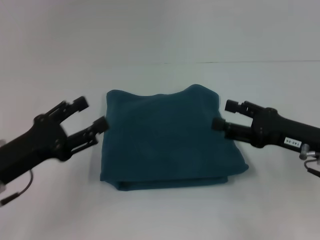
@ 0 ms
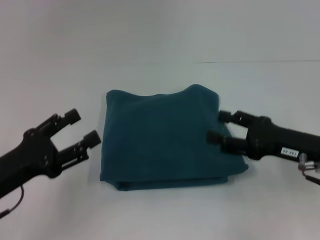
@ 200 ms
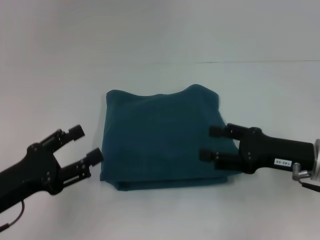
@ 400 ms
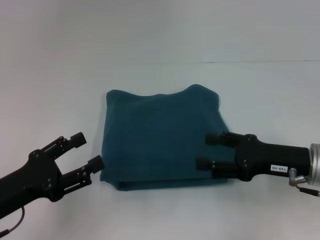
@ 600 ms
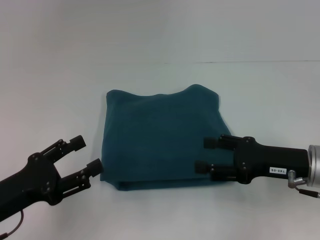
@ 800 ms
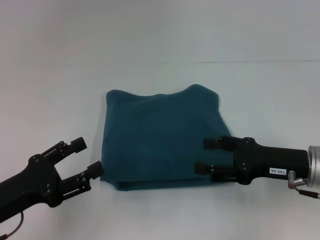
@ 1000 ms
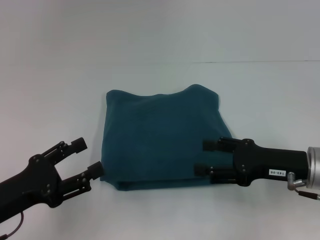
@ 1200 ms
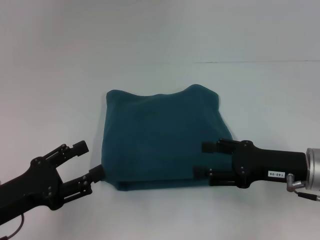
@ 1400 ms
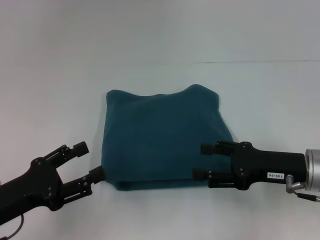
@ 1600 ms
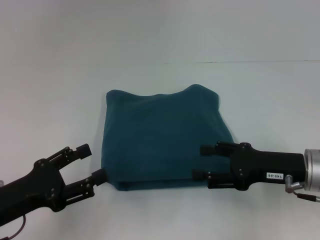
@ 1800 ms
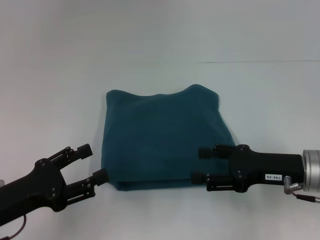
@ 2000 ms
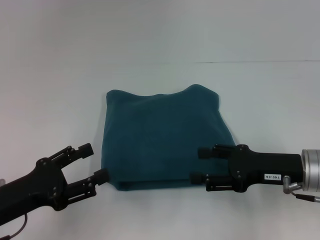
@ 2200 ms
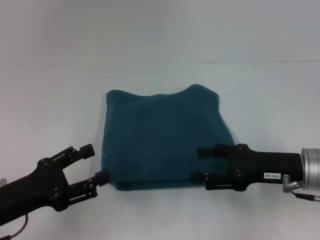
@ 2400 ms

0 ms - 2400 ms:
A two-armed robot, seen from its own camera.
0 ms - 1200 ms: The grippers make only small movements.
1200 ms - 2400 ms: Neither gripper changes place.

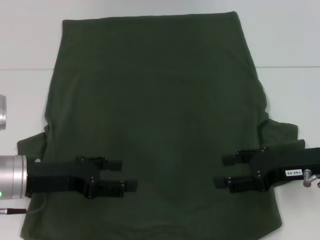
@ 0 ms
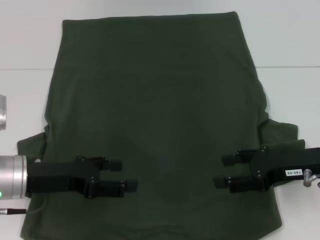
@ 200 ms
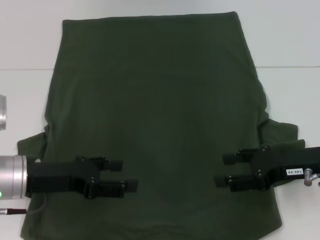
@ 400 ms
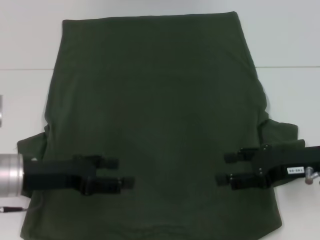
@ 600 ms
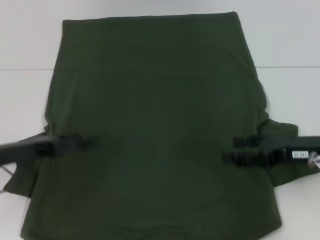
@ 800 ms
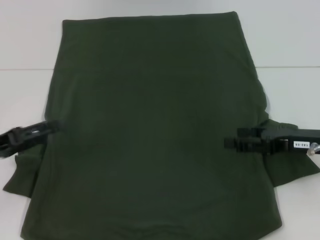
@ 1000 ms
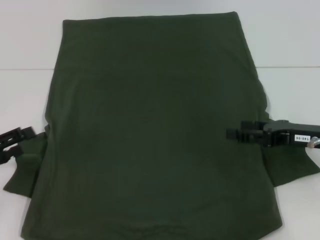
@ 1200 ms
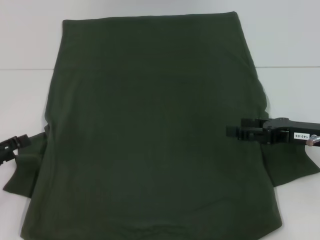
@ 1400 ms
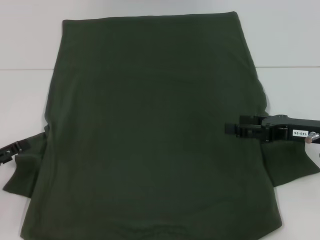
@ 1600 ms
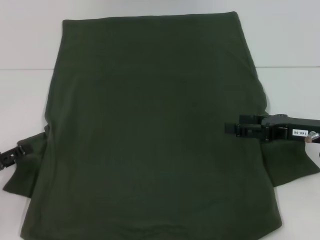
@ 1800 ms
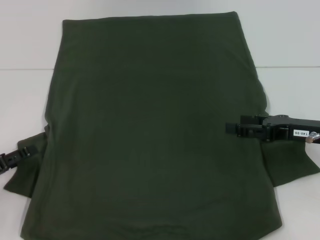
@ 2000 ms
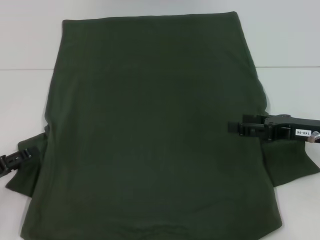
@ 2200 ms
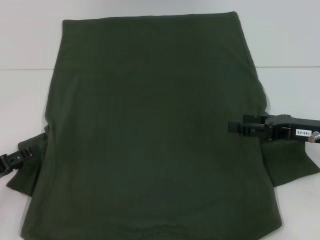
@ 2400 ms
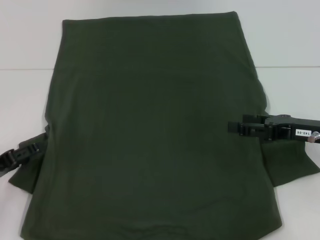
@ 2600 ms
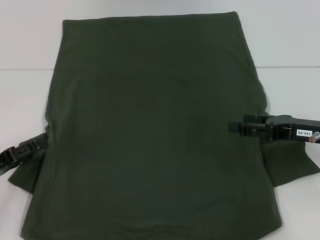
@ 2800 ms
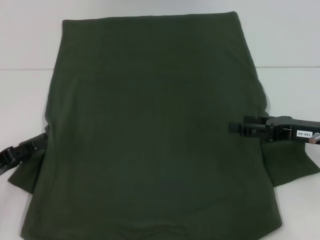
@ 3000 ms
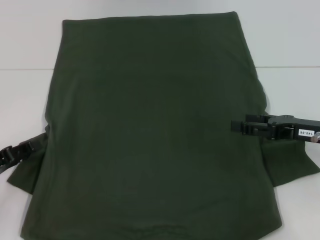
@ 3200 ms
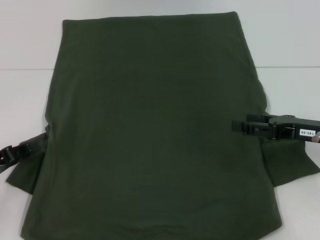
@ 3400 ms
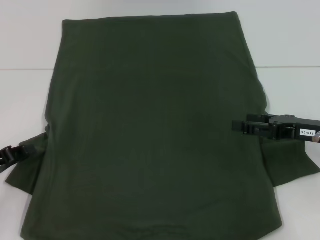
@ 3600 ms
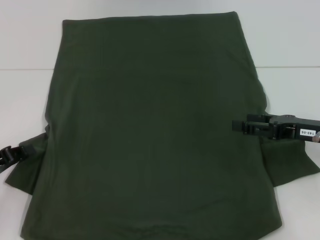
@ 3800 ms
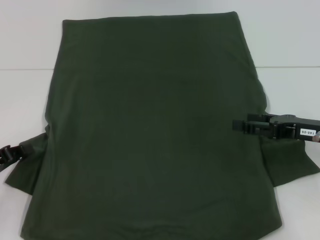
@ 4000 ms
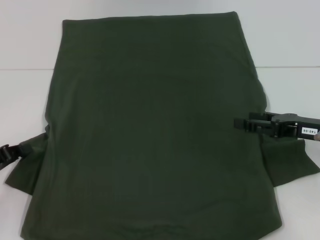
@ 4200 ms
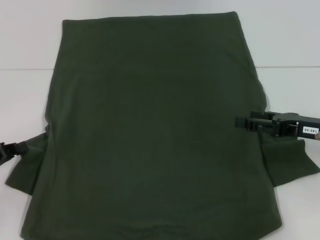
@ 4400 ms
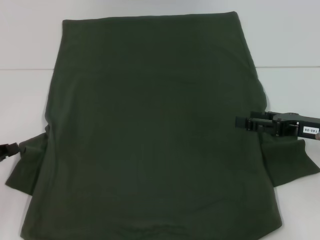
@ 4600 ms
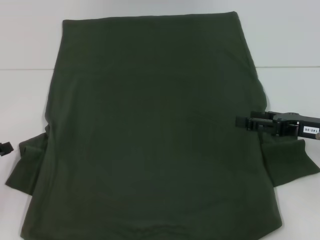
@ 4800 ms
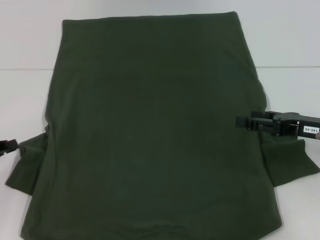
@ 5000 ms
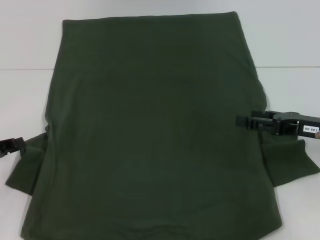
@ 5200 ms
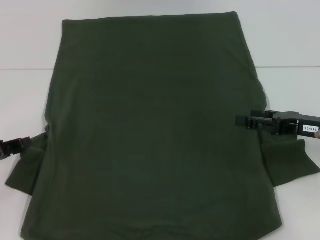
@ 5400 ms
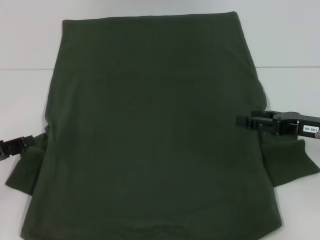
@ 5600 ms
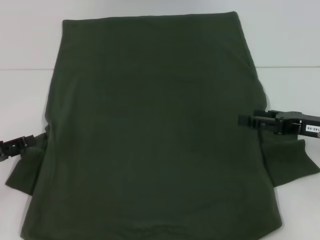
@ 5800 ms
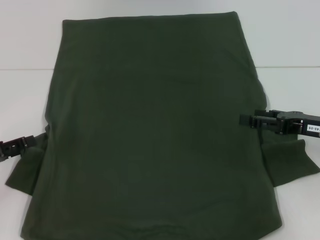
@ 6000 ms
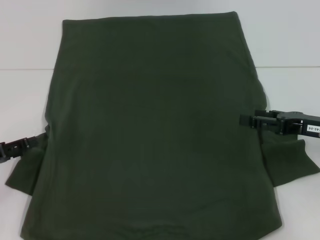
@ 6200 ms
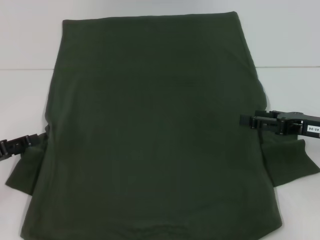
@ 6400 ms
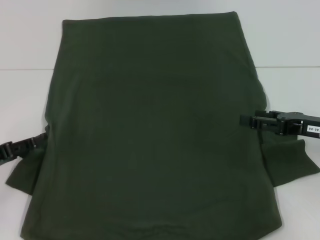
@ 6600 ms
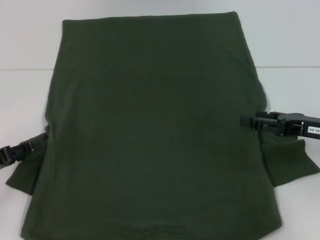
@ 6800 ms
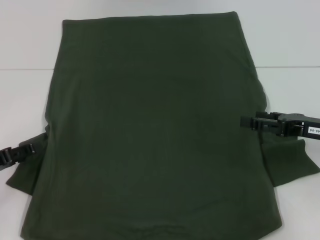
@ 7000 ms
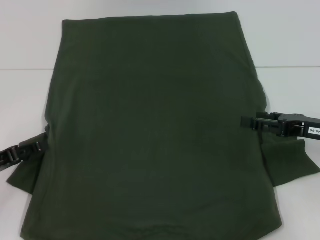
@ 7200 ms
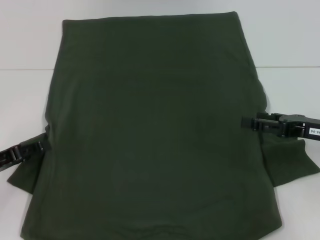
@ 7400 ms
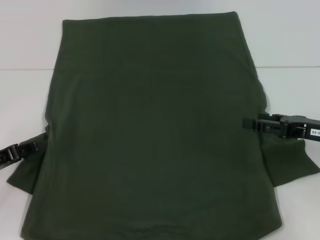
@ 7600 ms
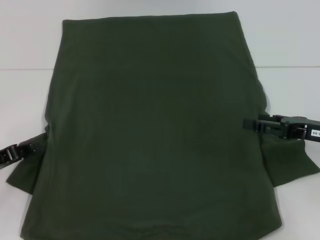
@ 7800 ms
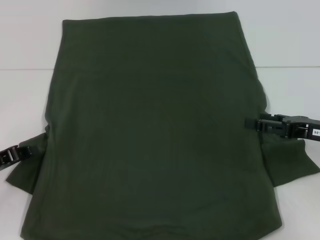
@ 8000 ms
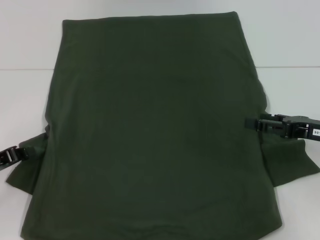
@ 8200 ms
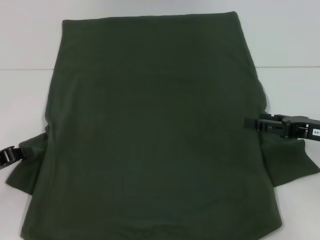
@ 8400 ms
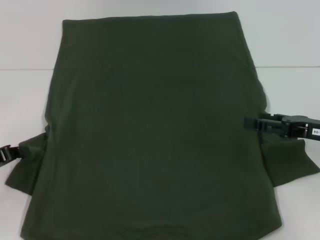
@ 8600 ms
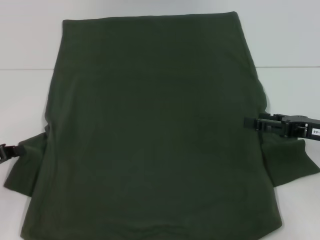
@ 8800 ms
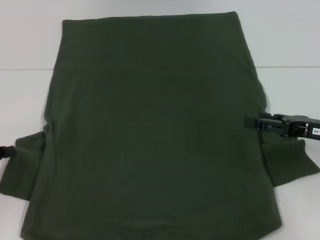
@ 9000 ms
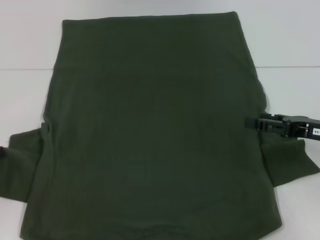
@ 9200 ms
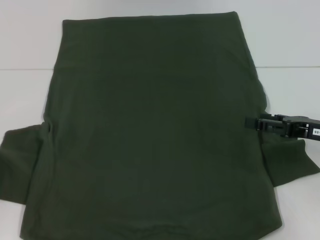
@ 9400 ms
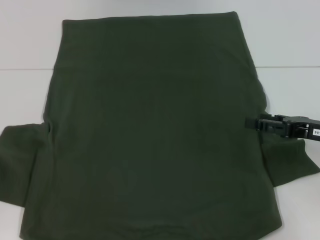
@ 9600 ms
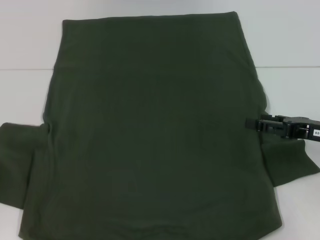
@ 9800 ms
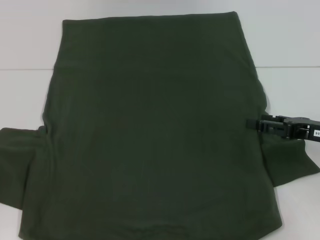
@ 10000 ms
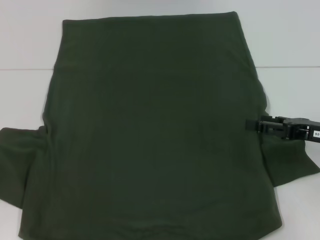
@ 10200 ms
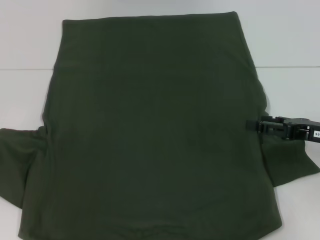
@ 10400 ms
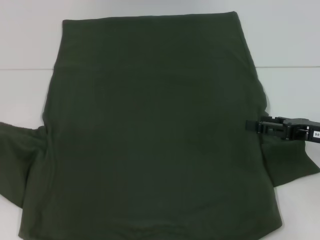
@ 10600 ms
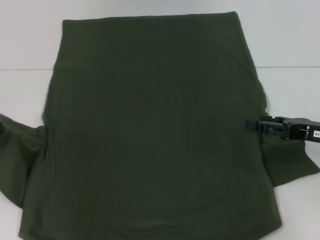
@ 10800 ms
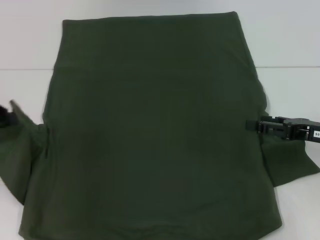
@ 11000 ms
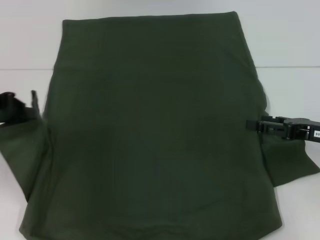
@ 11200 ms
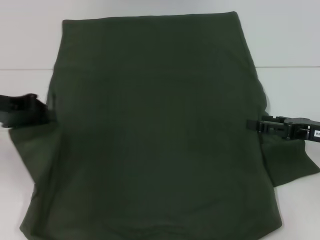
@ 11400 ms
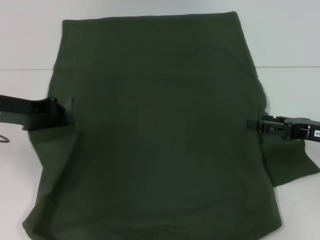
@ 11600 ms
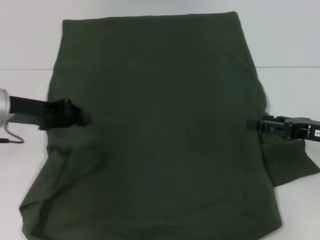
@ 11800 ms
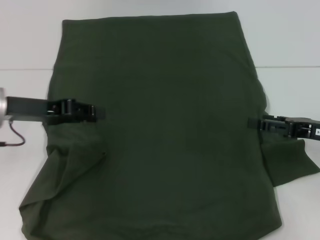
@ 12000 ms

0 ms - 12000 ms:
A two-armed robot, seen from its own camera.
0 ms - 1600 ms: The left gripper is displaced to the left by some 10 cm.
1600 ms - 3000 ms: The grippers make only small movements.
3000 ms - 4400 ms: The left gripper closes.
6000 ms - 7600 ms: The grippers move only a little.
7600 ms - 9000 ms: The left gripper closes.
9000 ms - 10400 ms: The left gripper shifts about 5 cm upward.
10400 ms - 12000 ms: The left gripper shifts approximately 15 cm to the right.

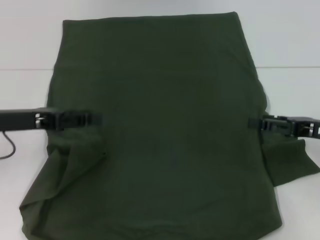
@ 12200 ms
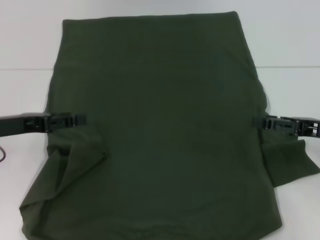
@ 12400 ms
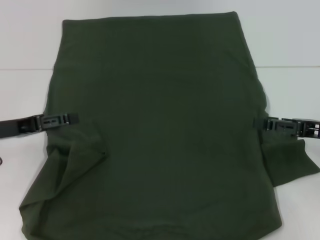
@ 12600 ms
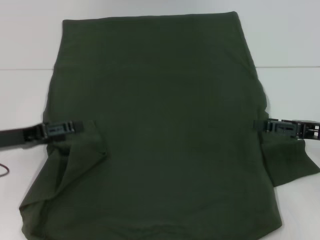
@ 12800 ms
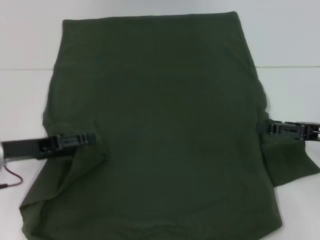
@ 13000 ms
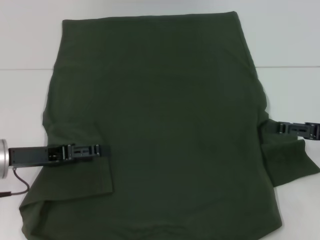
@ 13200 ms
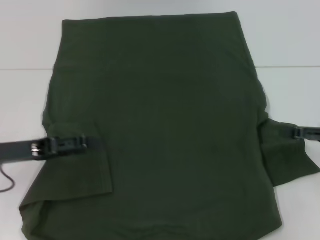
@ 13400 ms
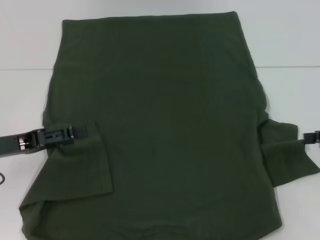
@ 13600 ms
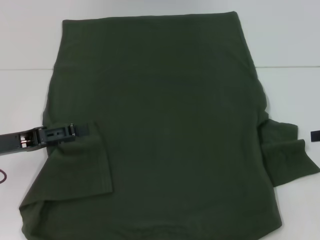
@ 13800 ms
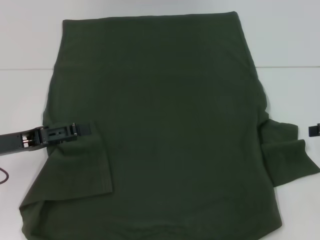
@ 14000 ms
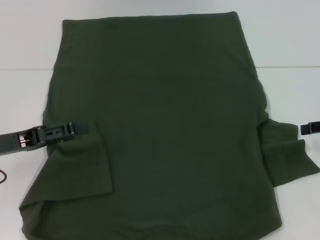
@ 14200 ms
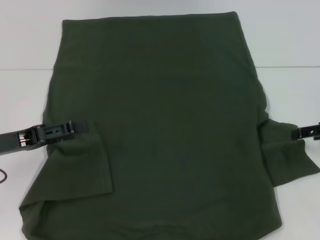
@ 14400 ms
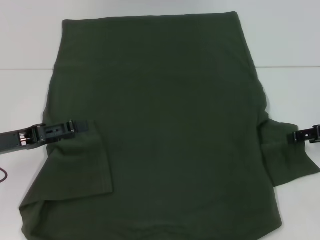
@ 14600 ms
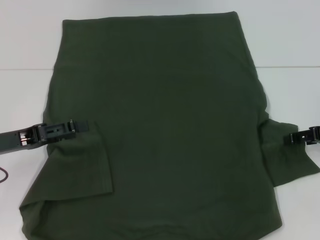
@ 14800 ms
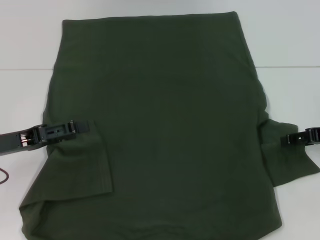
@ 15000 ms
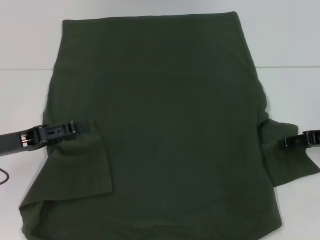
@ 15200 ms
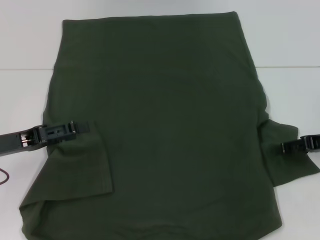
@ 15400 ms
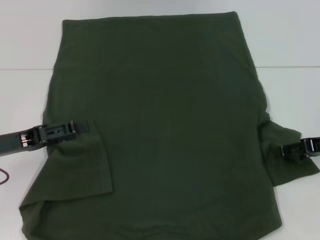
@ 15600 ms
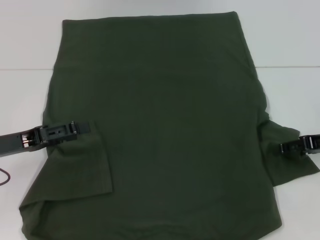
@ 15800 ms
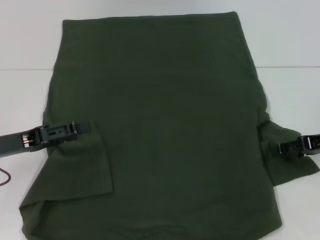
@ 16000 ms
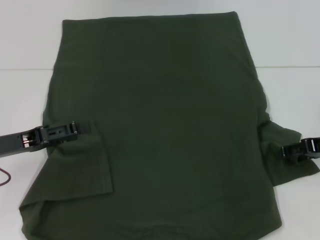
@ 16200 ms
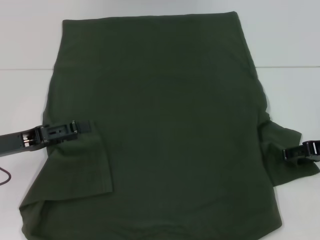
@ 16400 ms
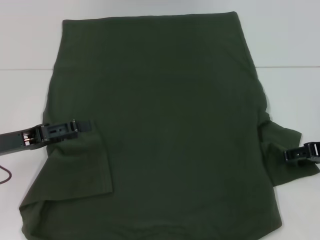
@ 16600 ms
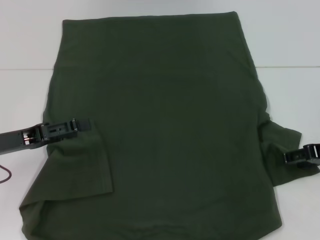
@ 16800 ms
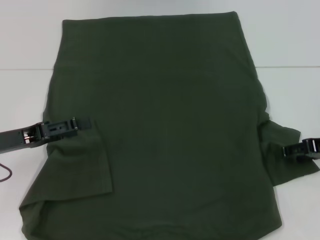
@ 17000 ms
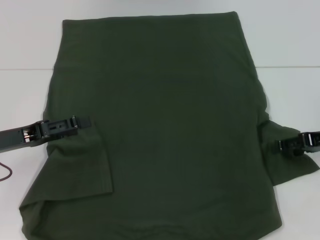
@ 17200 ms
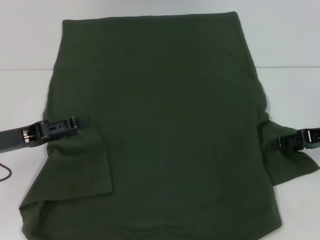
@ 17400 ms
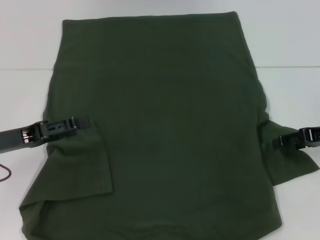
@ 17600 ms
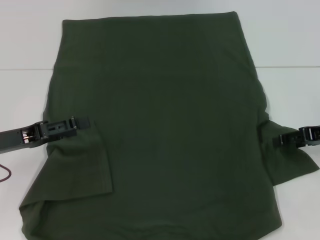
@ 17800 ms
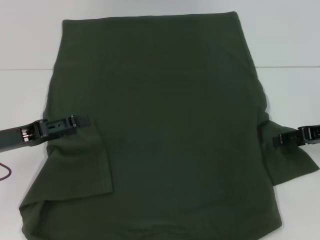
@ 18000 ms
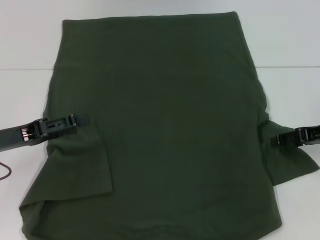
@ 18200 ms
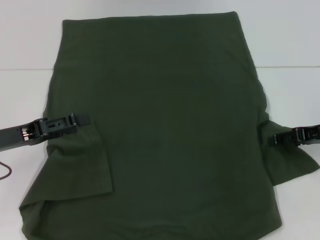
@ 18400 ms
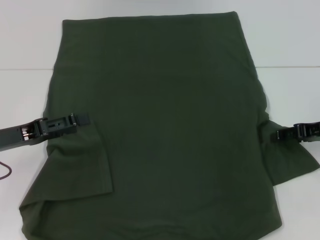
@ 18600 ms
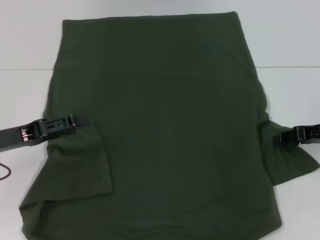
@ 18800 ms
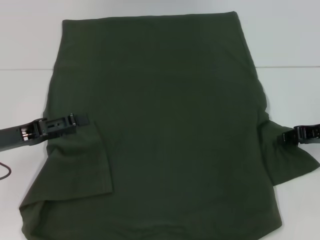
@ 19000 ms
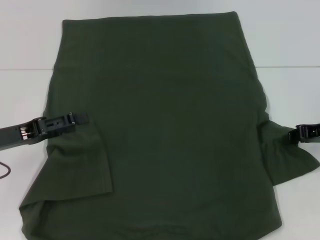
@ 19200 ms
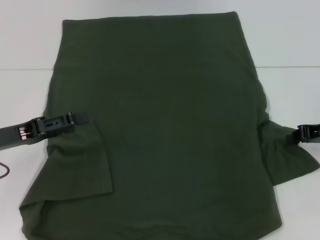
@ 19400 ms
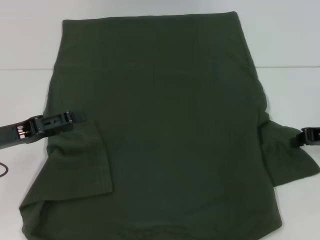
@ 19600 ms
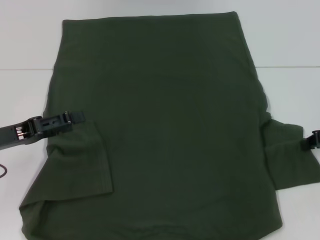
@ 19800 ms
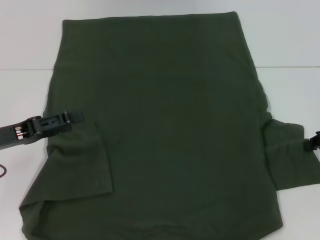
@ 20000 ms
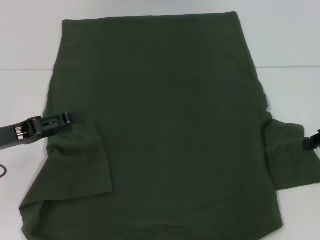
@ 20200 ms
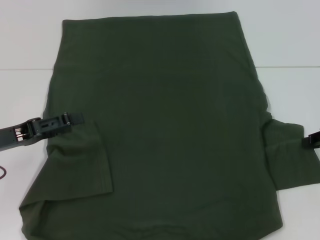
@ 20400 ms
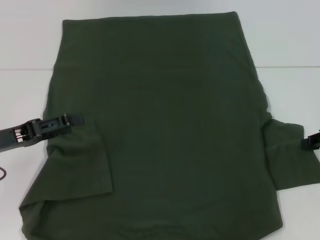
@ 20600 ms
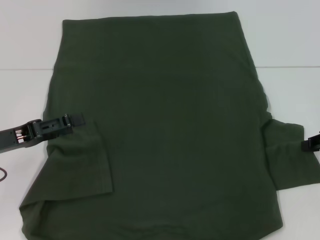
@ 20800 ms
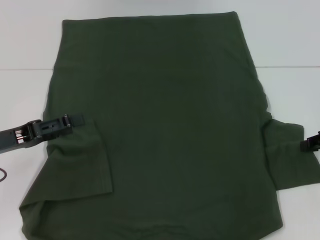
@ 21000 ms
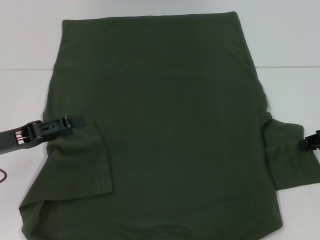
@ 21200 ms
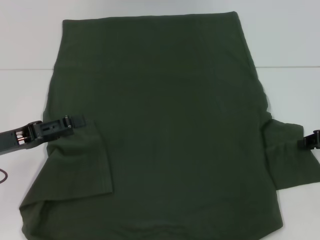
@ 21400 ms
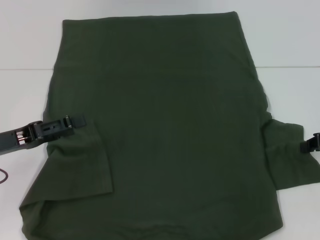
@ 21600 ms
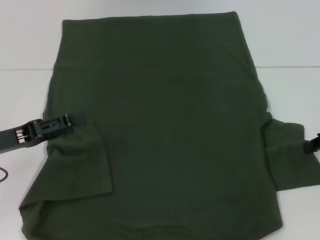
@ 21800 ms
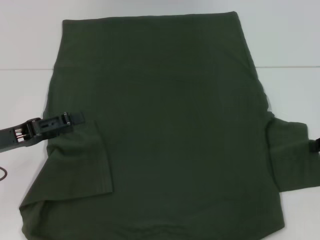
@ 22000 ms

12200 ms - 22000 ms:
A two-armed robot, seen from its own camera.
12200 ms - 13600 ms: The left gripper ends up some 5 cm from where it was, and opens up, while the right gripper moves to the right, some 5 cm.
13600 ms - 15000 ms: The right gripper moves about 5 cm.
15000 ms - 17800 ms: There are only small adjustments of the grippers.
19200 ms - 20600 ms: The right gripper closes up.
20600 ms - 22000 ms: Both grippers stay about where they are.